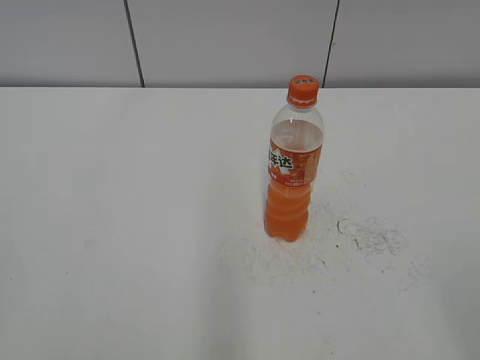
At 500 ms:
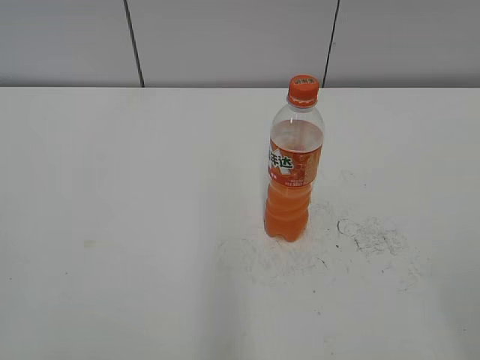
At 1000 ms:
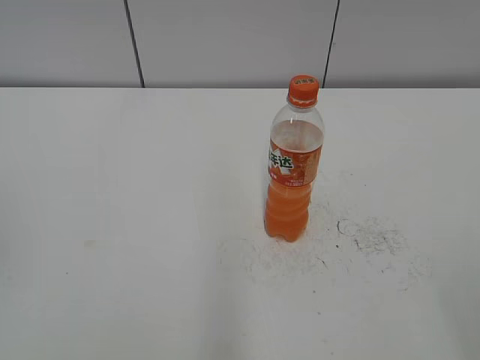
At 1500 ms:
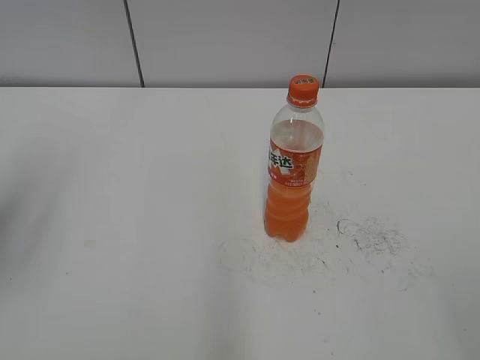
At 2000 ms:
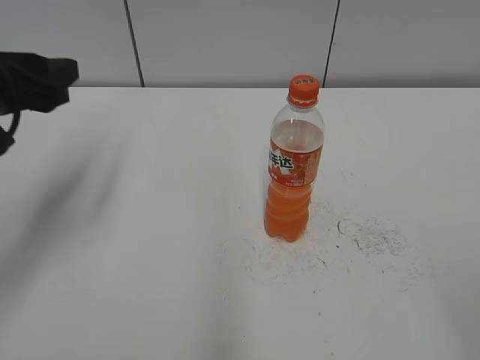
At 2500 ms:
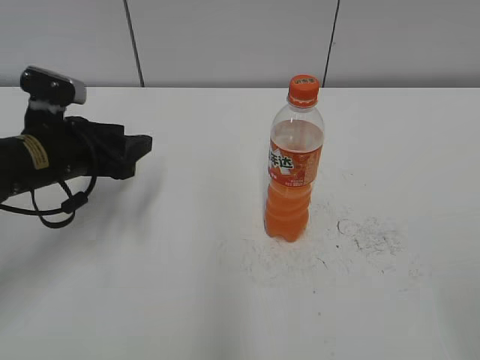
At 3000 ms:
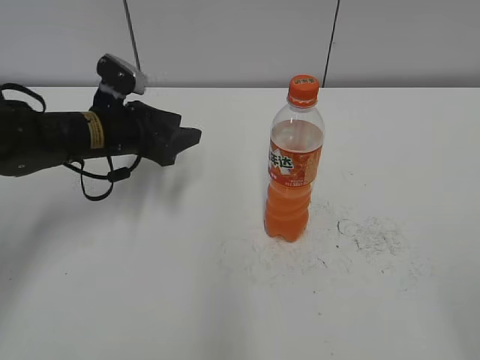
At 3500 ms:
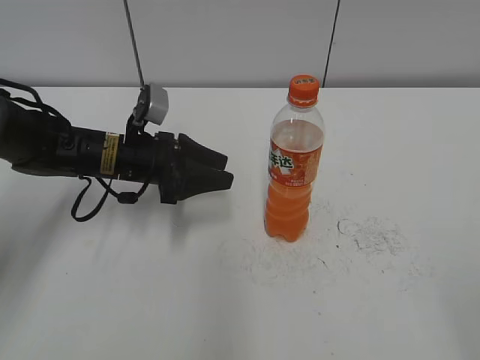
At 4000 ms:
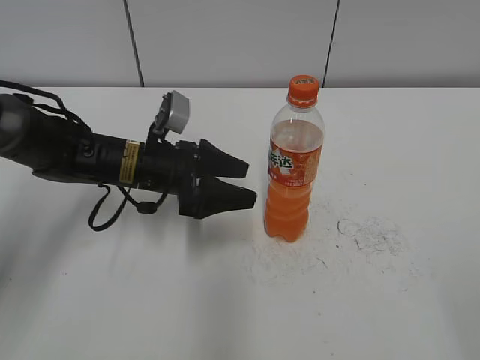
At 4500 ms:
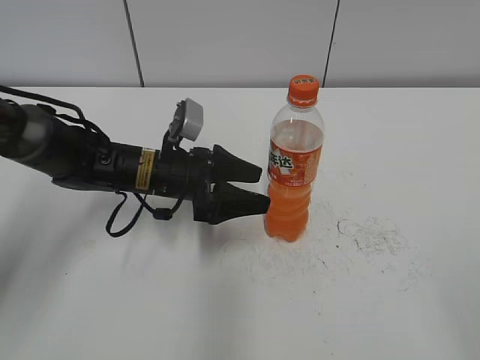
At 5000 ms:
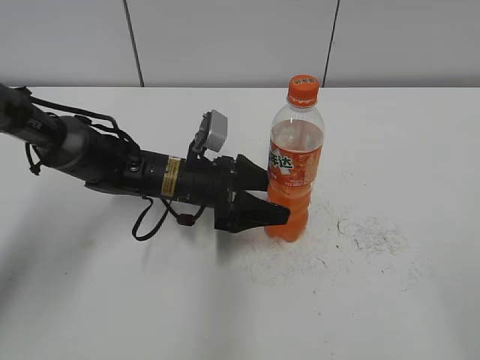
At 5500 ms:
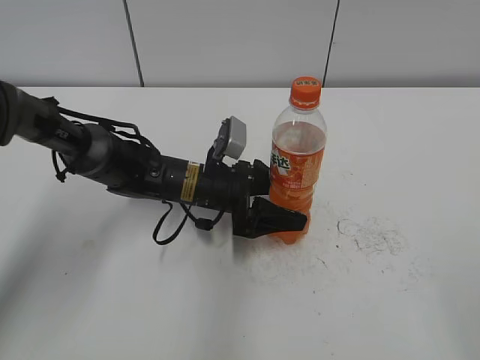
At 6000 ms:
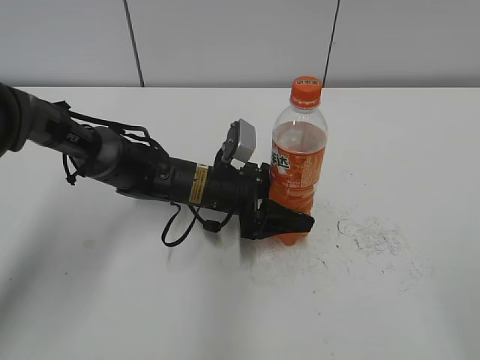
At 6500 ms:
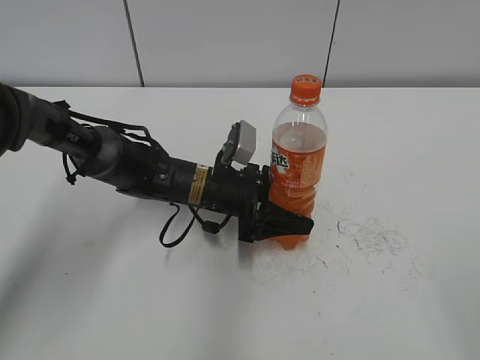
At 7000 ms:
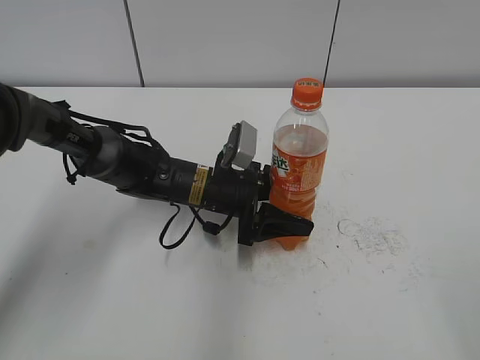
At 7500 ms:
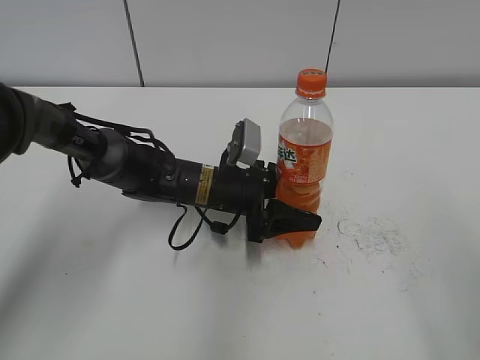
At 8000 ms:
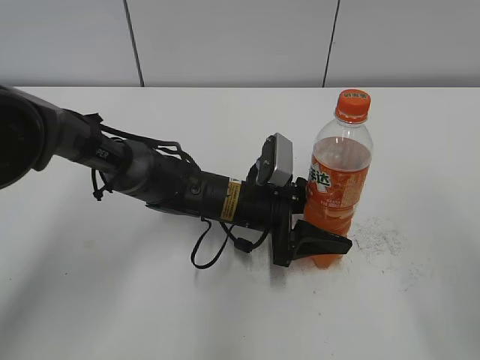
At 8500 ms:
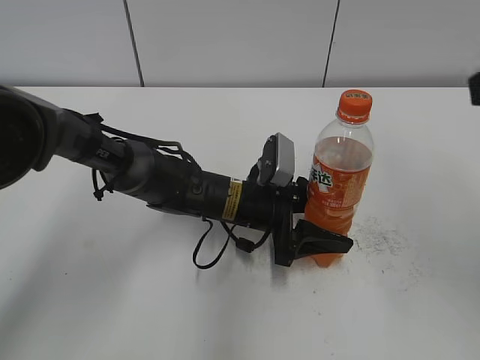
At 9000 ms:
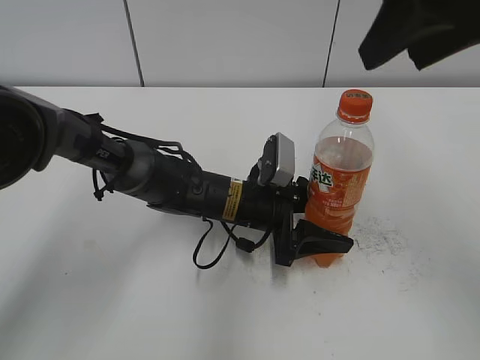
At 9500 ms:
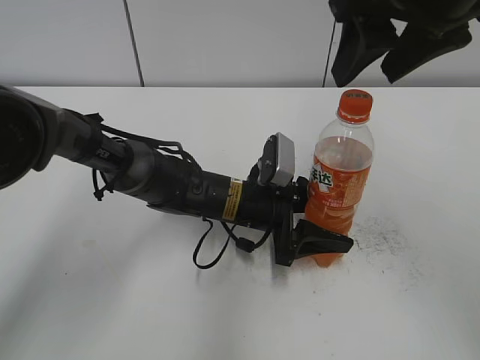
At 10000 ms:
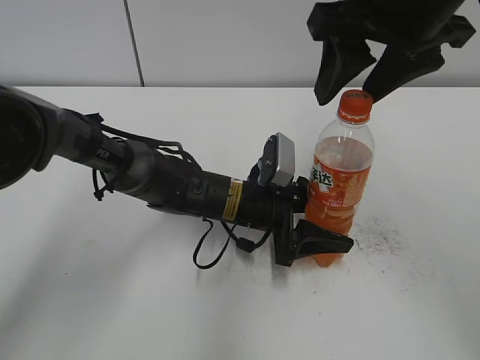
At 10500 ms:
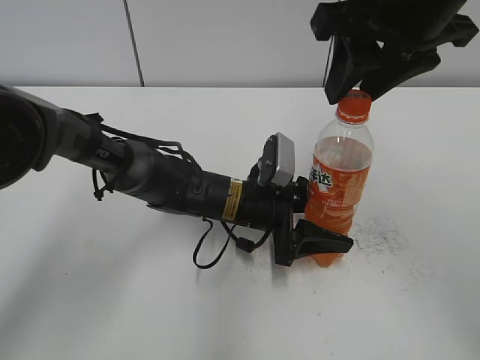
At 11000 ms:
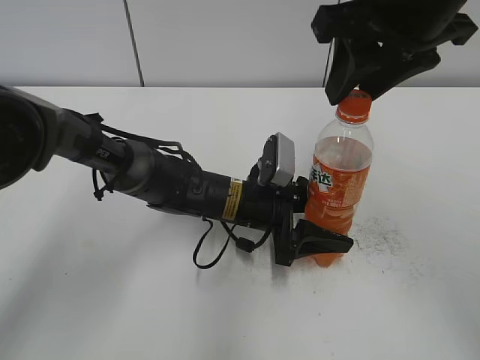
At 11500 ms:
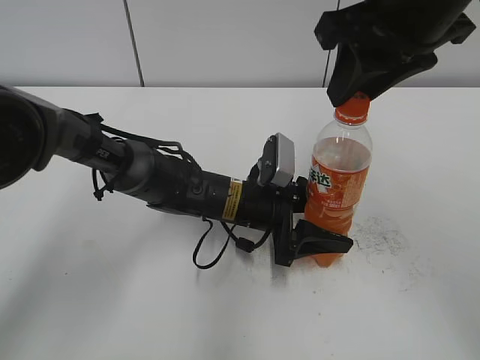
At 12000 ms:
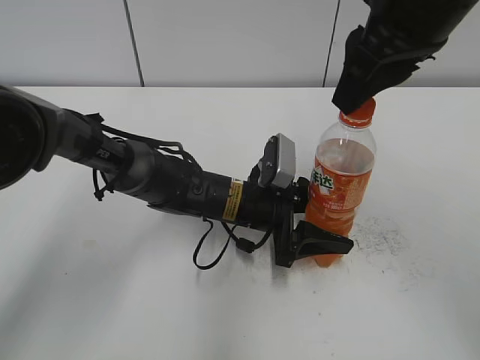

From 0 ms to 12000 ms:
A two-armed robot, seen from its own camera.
Step, from 0 ms to 7000 ms: Grab the Mirinda with the left hand.
Step, from 7500 ms to 8000 ms: Move the Mirinda to the right with the left hand.
From 2000 ms to 4000 ms: The left gripper goes about 20 cm downward, to the right and forward, and opens its fingers.
From 4000 ms to 6000 ms: The left gripper heads to the right, covering about 10 cm.
From 6000 ms to 8000 ms: The left gripper shifts by approximately 5 cm, and closes its fingers; the right gripper shifts some 10 cm forward.
From 8000 ms to 10000 ms: The right gripper shifts roughly 25 cm forward and to the left.
From 10000 ms to 12000 ms: The right gripper closes.

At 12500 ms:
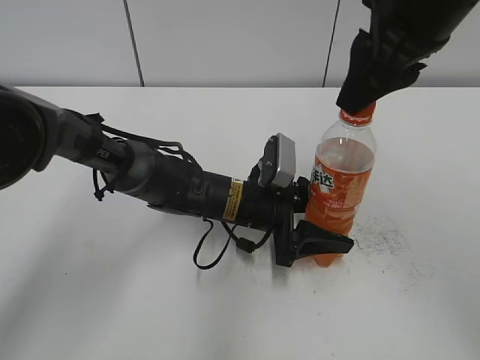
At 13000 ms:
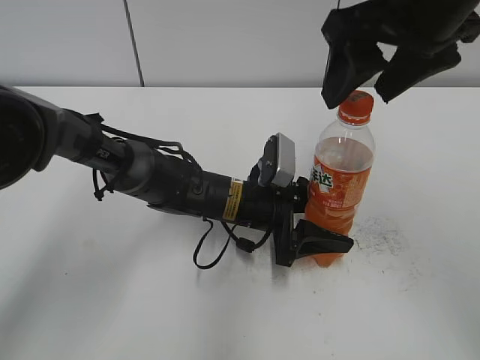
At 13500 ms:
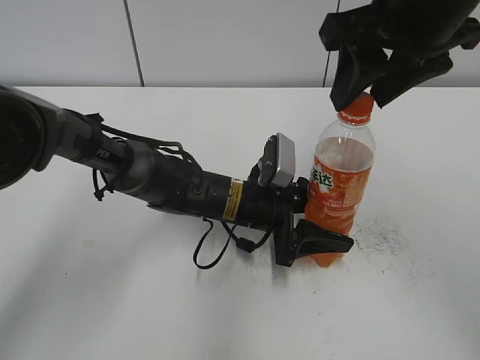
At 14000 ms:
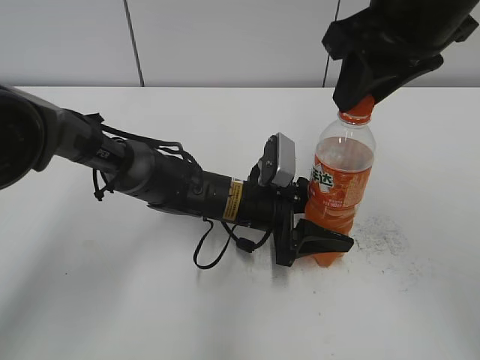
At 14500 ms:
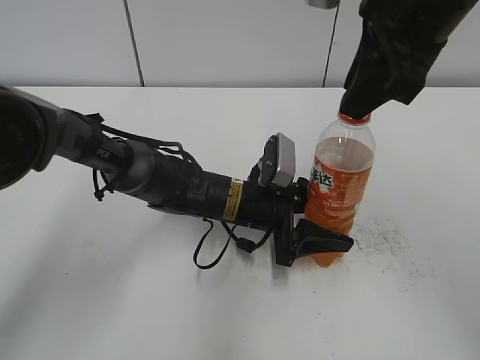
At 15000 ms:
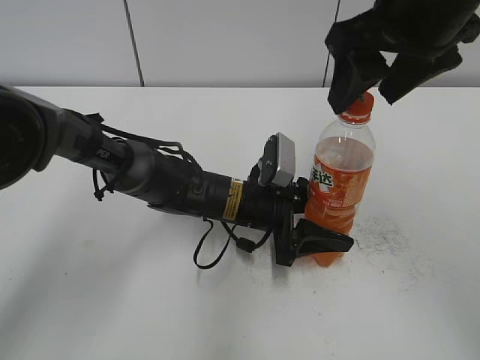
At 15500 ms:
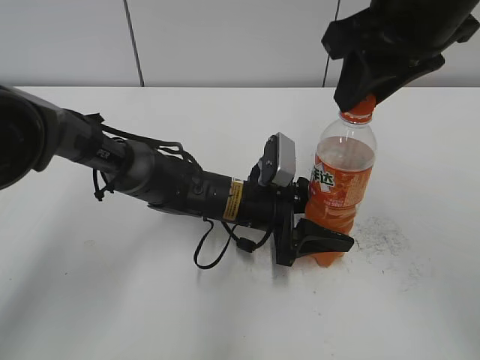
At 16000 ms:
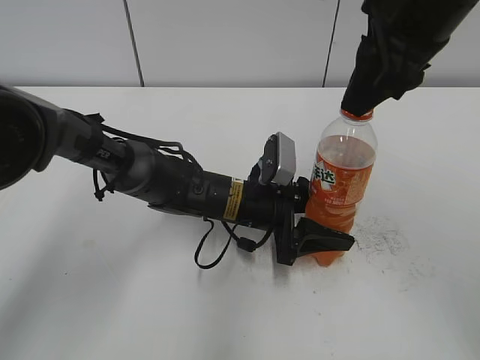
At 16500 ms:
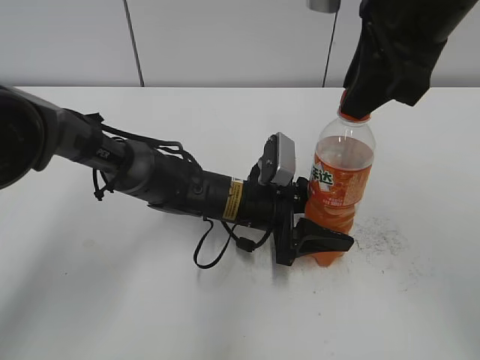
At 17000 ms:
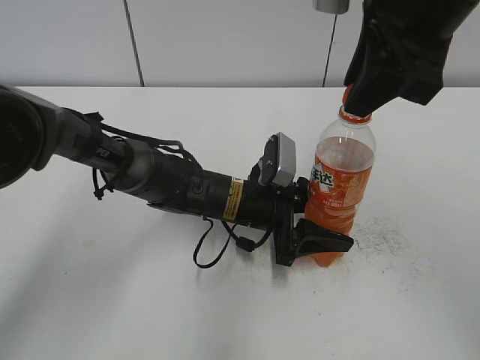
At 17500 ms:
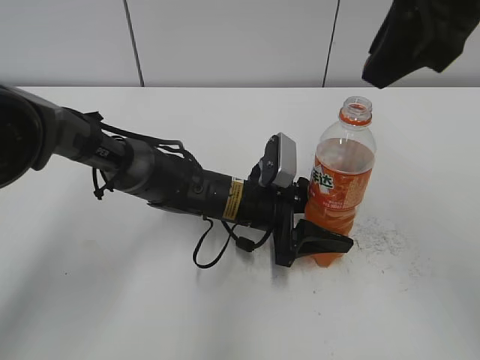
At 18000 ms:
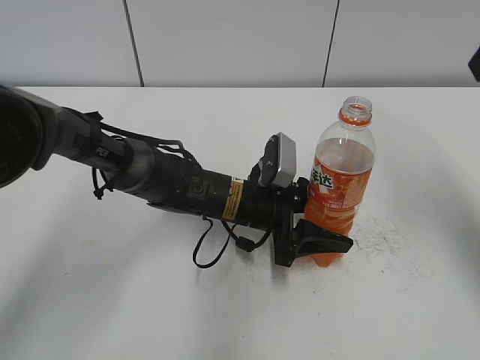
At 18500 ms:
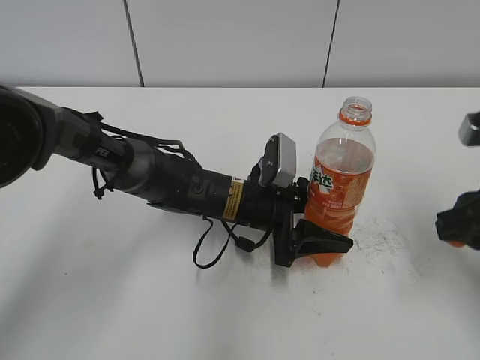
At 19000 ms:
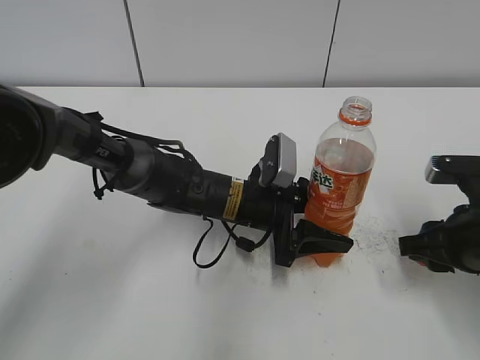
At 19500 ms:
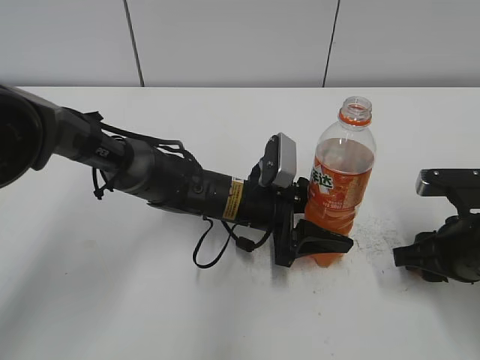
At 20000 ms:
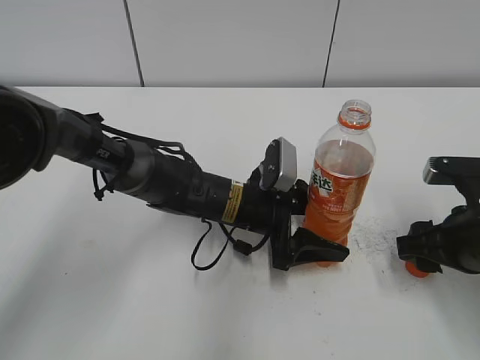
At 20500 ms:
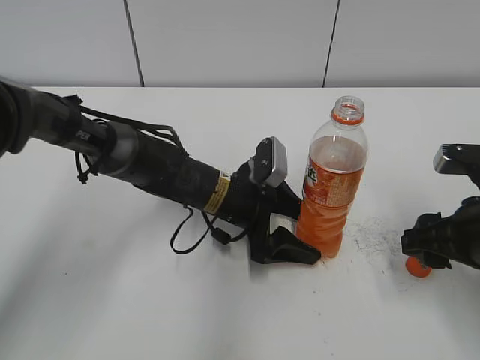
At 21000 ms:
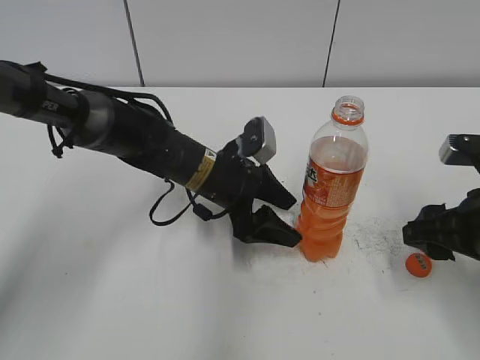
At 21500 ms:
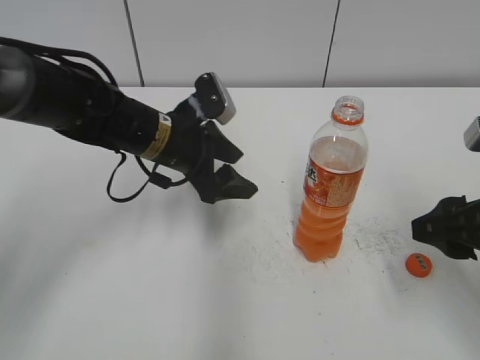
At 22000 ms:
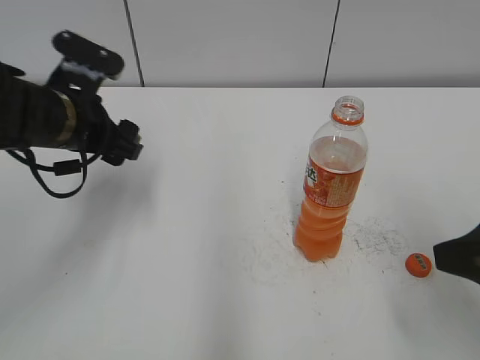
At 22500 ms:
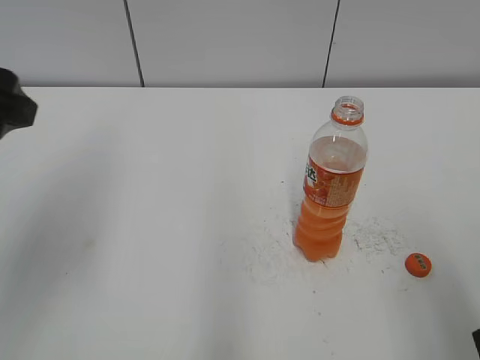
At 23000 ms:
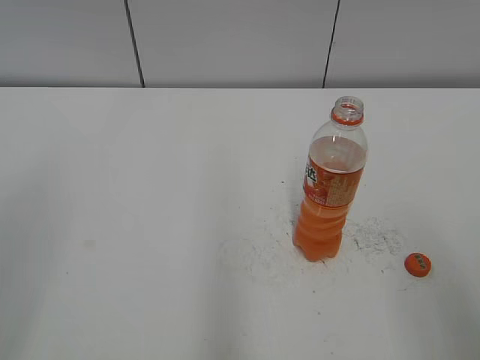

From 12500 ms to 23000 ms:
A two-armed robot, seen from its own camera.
Step, from 12500 ms to 17000 ms: Twist the bottle cap with the right hand.
Step, from 17500 ms to 20000 ms: Place the bottle cap on the table with the right hand.
From 12500 ms to 14500 ms: The right gripper opens, then closes again.
From 14500 ms to 16500 ms: The right gripper opens and closes again.
From 16500 ms to 19000 ms: The right gripper goes roughly 25 cm downward and to the right.
From 19000 ms to 21000 ms: The right gripper opens up, while the left gripper shifts by roughly 5 cm, and opens.
From 21000 ms to 23000 ms: The right gripper shifts about 20 cm backward and upward. Meanwhile the left gripper is displaced upward, to the left and backward by some 40 cm, and closes up.

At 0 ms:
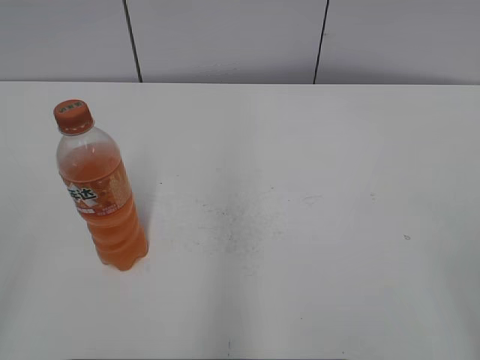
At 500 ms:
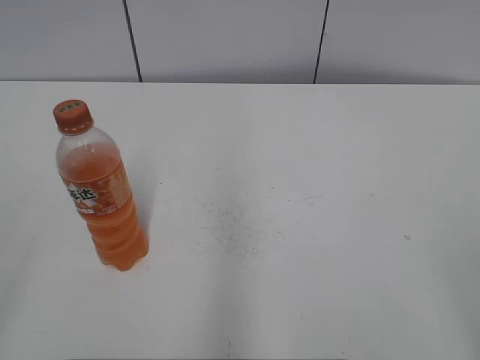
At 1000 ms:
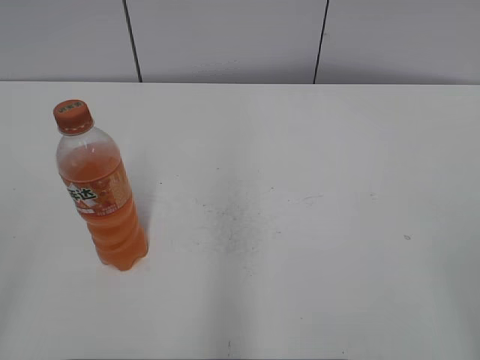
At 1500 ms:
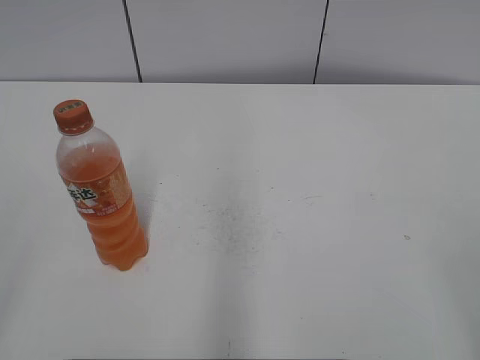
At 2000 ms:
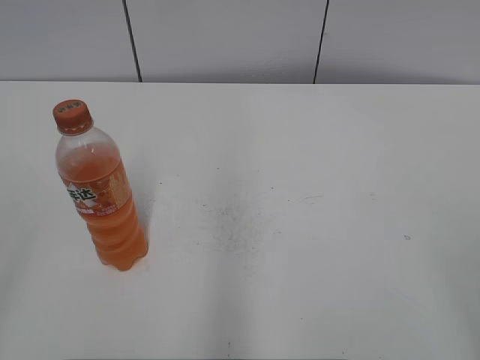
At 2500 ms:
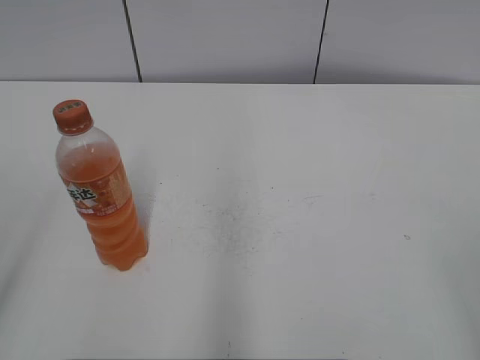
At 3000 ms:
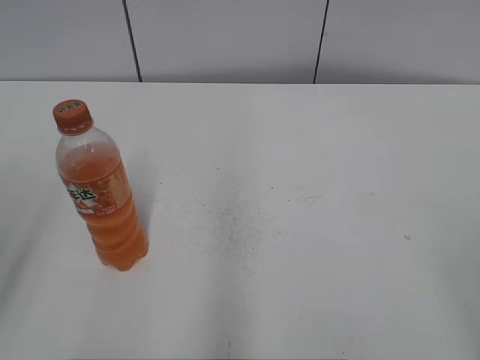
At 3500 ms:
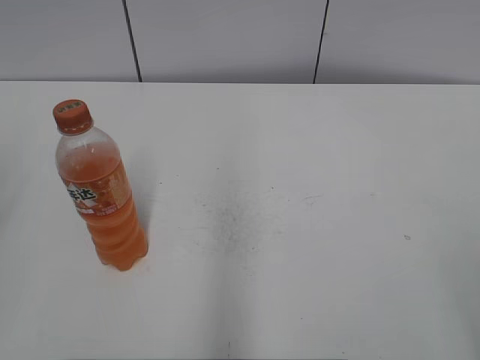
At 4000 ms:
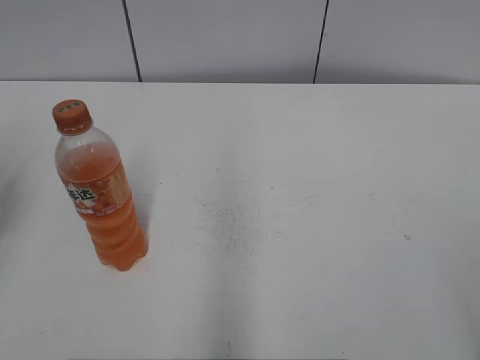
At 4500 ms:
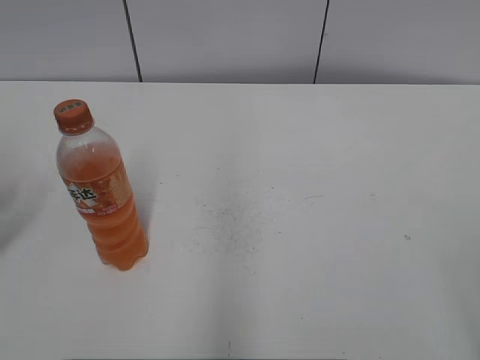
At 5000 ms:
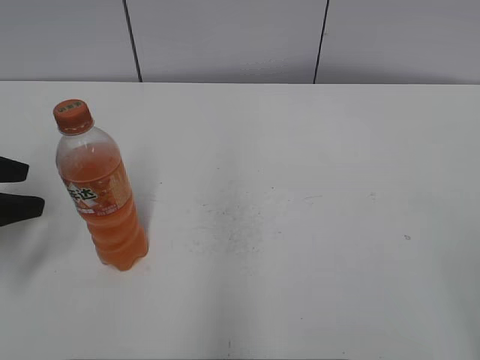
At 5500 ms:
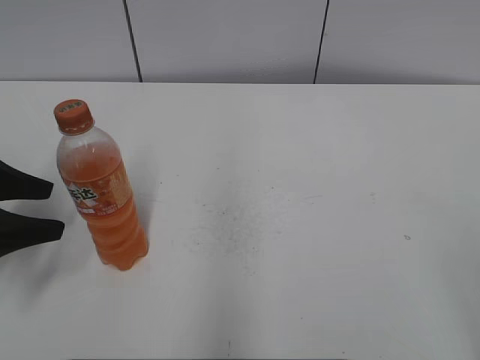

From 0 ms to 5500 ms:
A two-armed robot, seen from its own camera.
From 3500 ms to 5500 ms: The left gripper heads downward and forward, covering about 10 cm, and opens its fingers.
